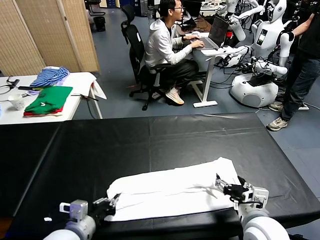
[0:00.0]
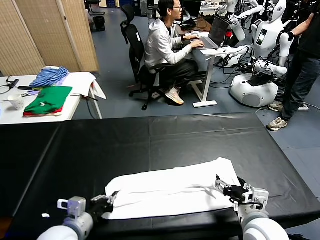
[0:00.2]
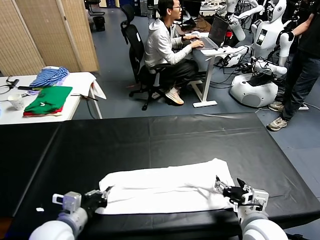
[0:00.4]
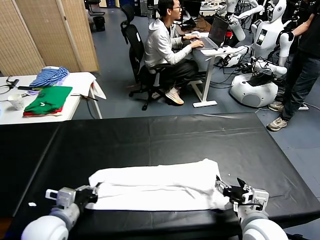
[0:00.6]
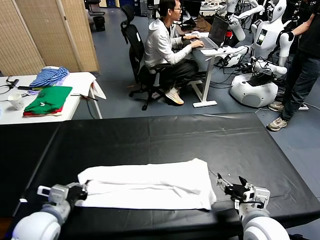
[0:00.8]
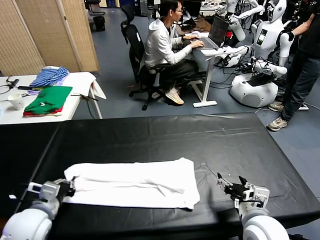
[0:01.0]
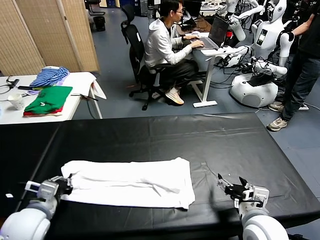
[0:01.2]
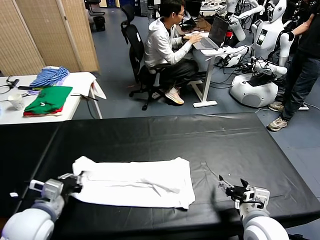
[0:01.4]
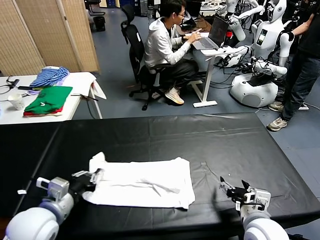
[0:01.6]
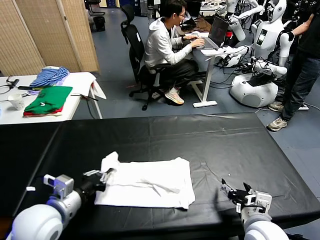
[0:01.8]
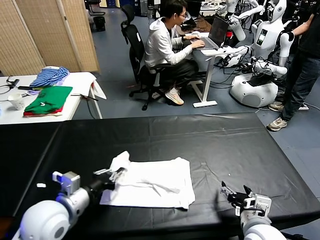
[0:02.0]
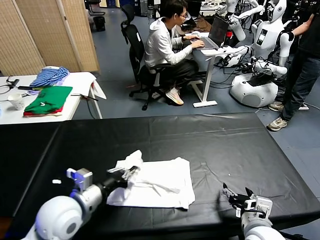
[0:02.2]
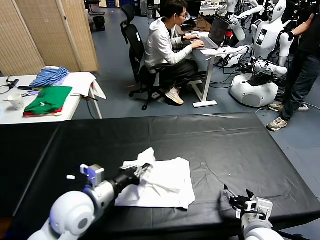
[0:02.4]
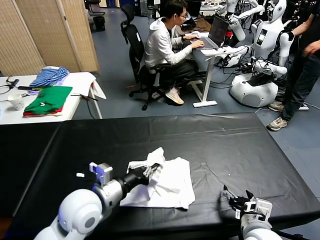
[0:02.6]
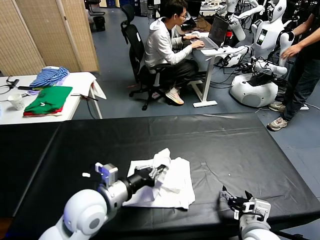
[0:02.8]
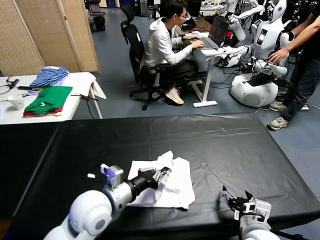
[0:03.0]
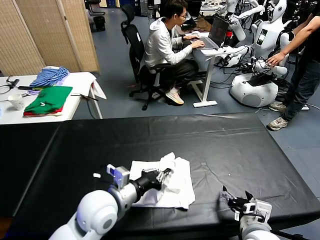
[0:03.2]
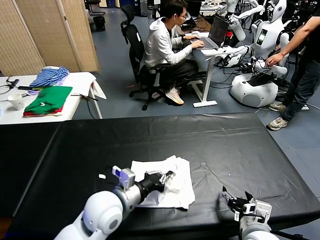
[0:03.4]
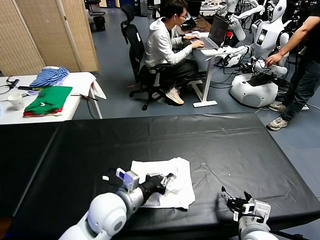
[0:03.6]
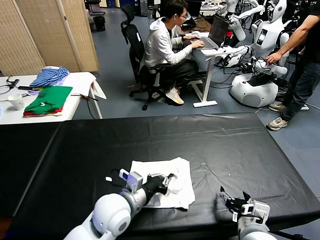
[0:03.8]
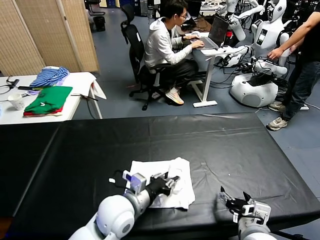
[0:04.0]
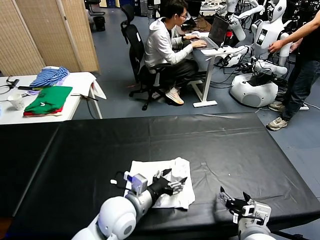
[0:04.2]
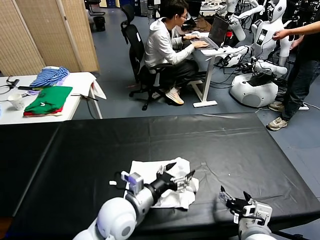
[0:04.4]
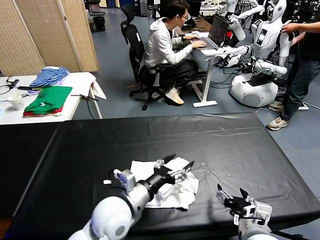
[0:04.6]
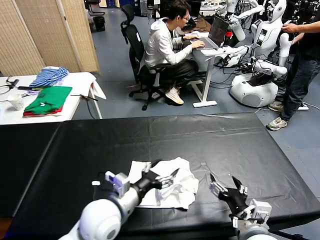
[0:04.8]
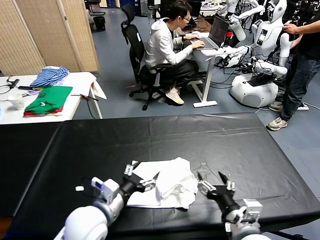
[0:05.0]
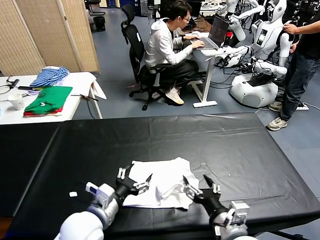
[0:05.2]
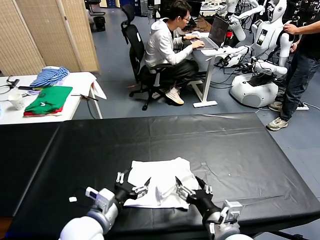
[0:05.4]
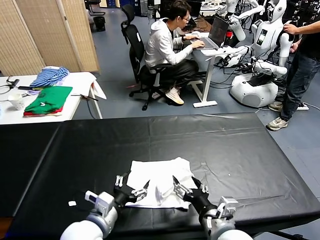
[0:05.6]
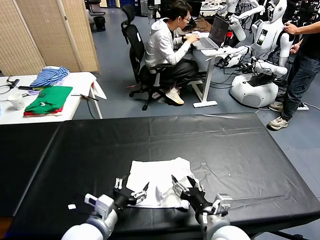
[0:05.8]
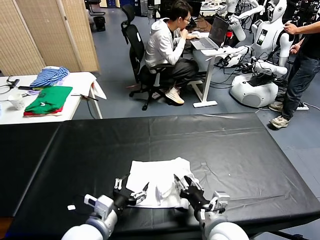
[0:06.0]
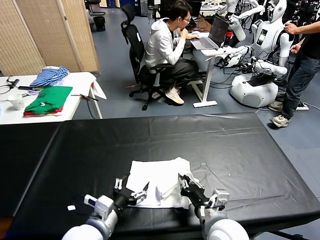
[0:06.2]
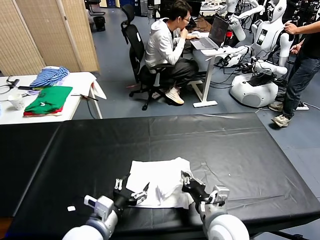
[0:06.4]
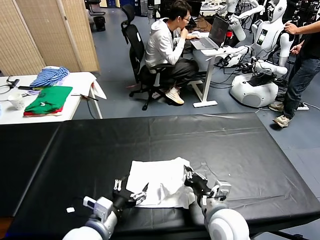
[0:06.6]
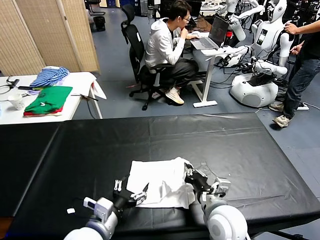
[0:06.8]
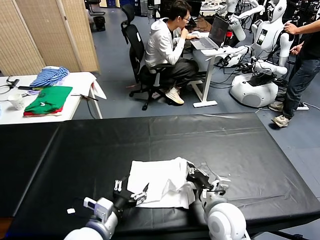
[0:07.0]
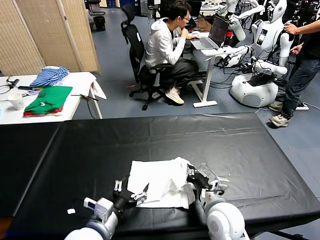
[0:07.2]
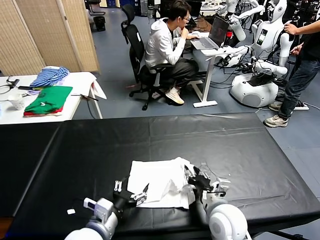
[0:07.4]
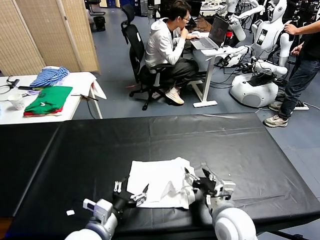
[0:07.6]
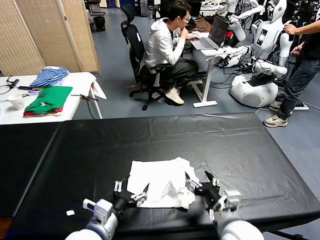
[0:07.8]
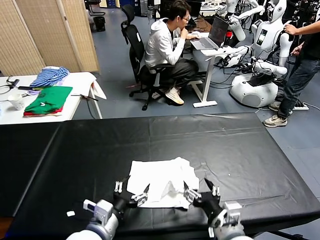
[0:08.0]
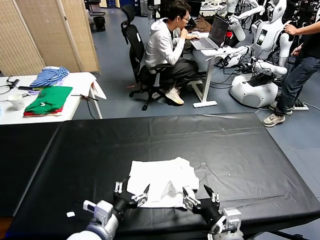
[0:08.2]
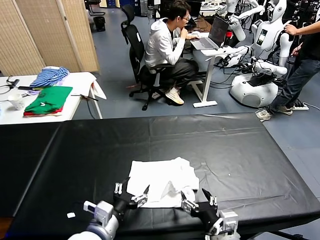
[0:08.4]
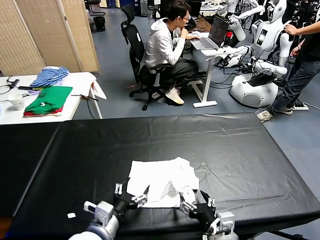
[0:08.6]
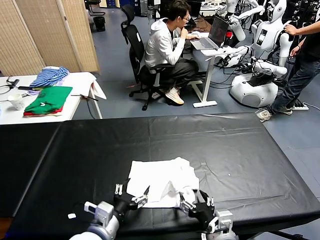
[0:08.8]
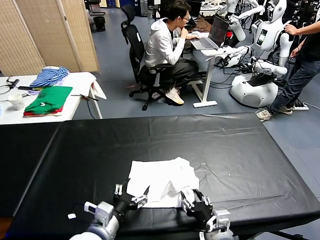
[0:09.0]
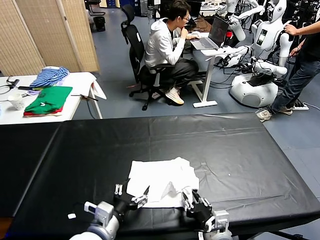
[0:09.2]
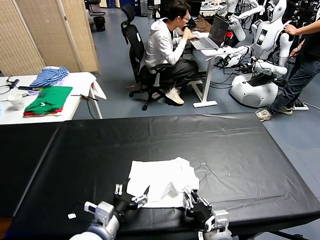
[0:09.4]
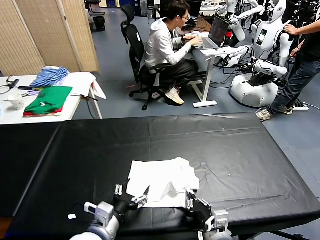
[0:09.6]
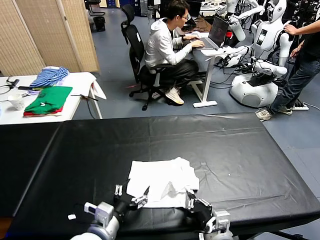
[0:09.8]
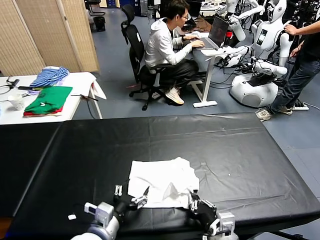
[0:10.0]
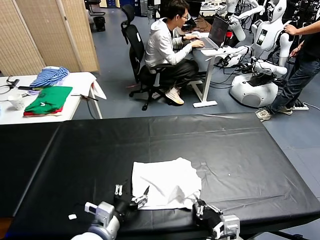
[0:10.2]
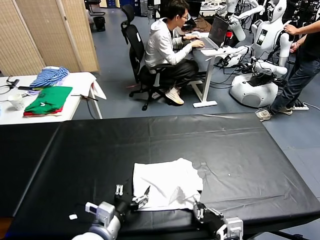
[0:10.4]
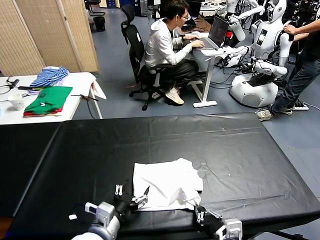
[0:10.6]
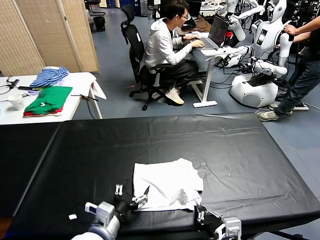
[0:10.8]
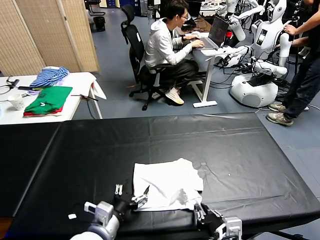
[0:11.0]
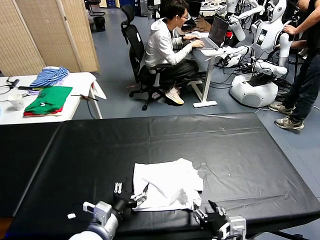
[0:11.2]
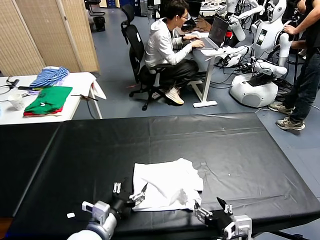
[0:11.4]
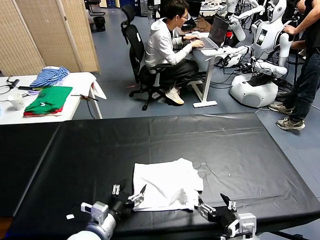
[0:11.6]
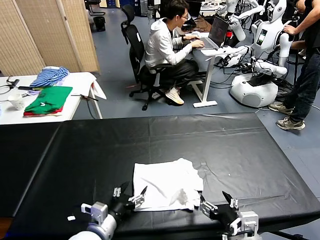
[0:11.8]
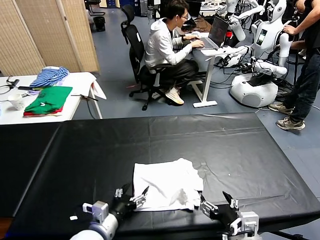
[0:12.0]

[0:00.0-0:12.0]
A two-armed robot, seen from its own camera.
Task of the whole recording: fold and organize the clothes.
Step, 0:00.0 to 0:04.0: use the left gripper to drag the left edge of the fabric to the left and folds it over the right edge.
0:00.0 to 0:01.6: The left gripper heads upward, covering roughly 5 cm, and moves some 10 cm to the left and comes back.
0:01.6 to 0:03.0: The left gripper shifts some 10 cm to the right.
0:03.0 to 0:04.4: The left gripper opens up.
0:04.4 to 0:06.0: The left gripper goes some 10 cm to the left and backward. Meanwhile the right gripper is displaced to the left by roughly 5 cm, and closes.
0:06.0 to 0:07.6: The right gripper opens.
0:07.6 to 0:09.0: The right gripper shifts by some 5 cm, and closes.
0:09.0 to 0:10.4: The right gripper shifts by about 5 cm, and closes.
0:10.4 to 0:12.0: The right gripper opens up, while the left gripper ends up approximately 5 cm from where it was.

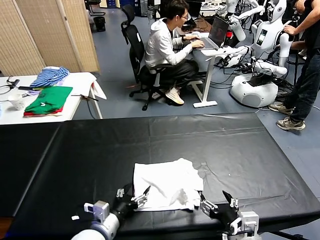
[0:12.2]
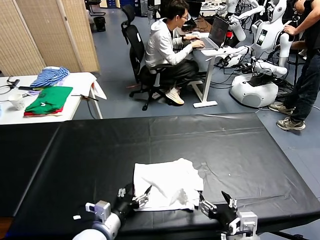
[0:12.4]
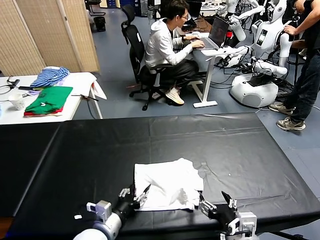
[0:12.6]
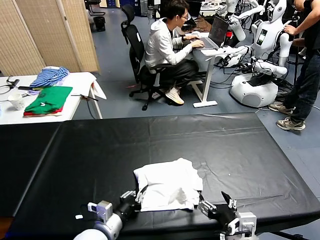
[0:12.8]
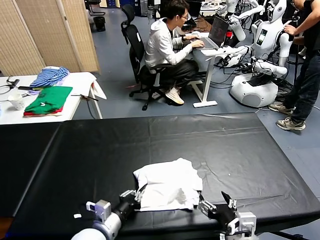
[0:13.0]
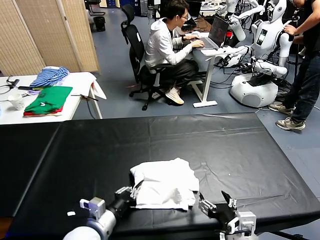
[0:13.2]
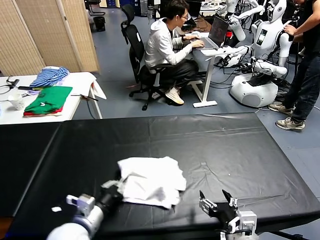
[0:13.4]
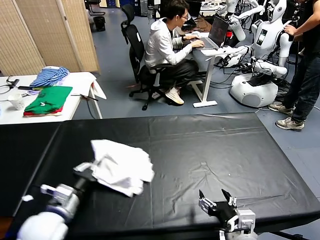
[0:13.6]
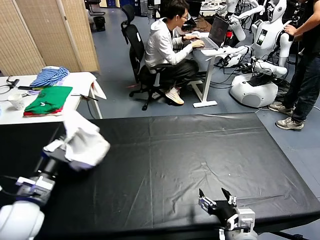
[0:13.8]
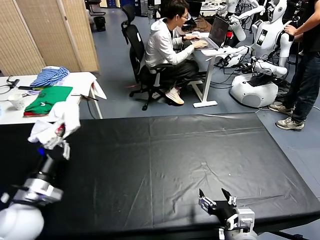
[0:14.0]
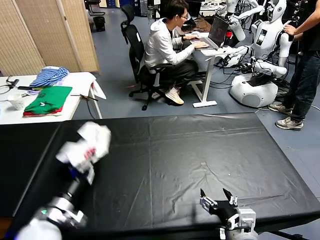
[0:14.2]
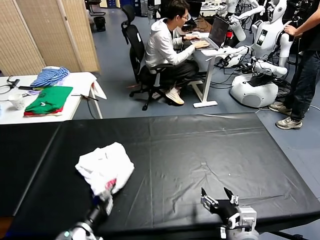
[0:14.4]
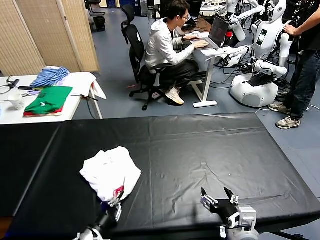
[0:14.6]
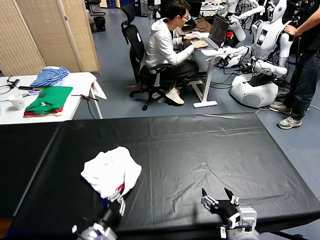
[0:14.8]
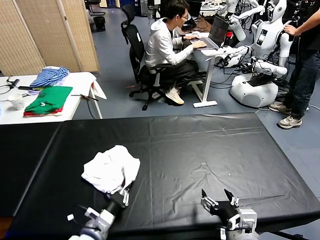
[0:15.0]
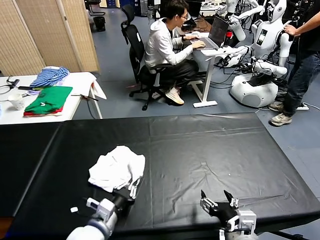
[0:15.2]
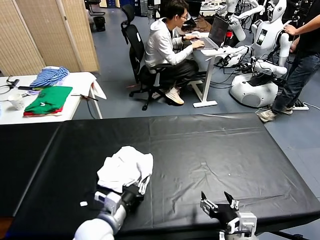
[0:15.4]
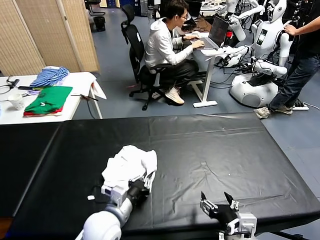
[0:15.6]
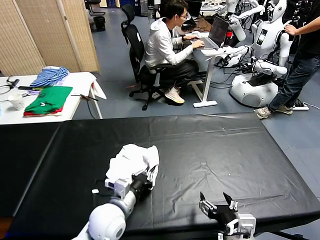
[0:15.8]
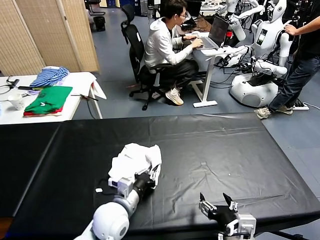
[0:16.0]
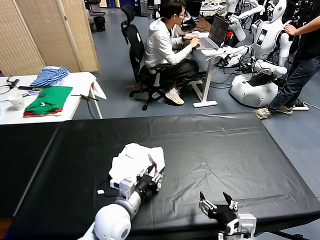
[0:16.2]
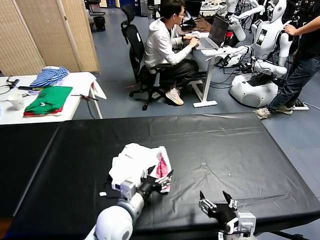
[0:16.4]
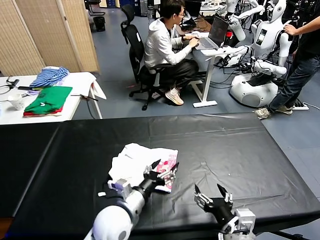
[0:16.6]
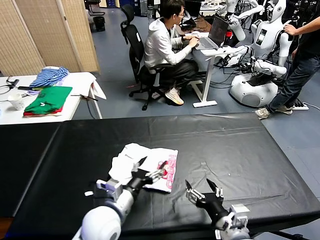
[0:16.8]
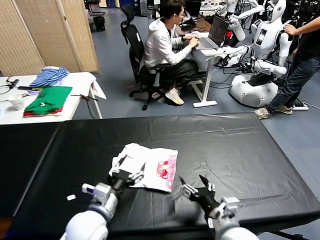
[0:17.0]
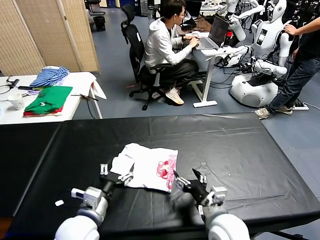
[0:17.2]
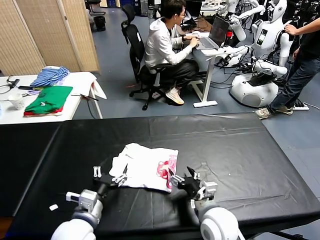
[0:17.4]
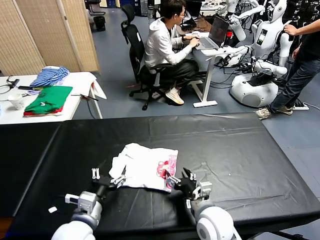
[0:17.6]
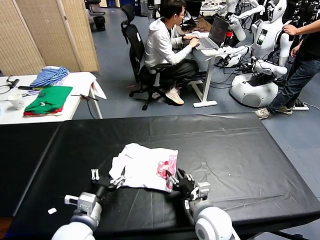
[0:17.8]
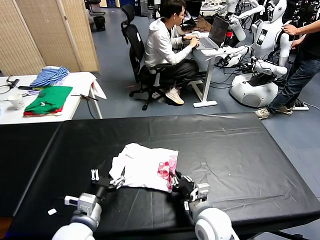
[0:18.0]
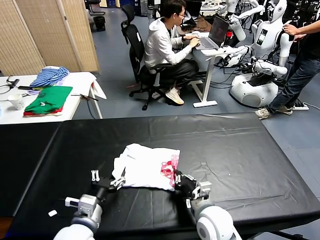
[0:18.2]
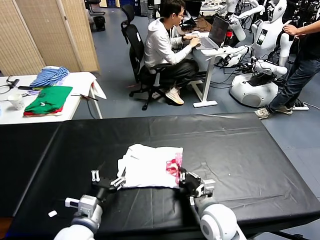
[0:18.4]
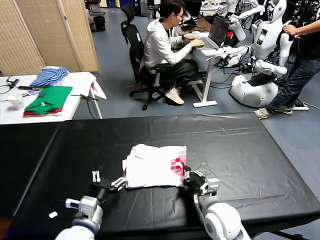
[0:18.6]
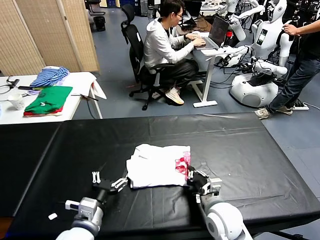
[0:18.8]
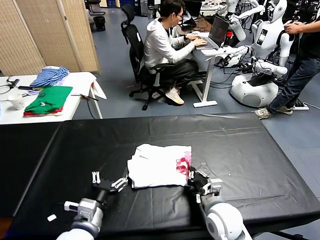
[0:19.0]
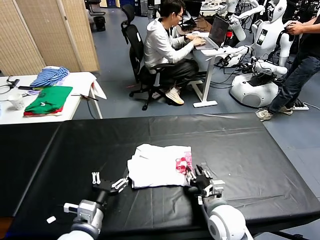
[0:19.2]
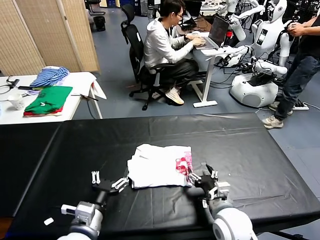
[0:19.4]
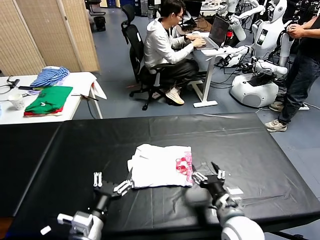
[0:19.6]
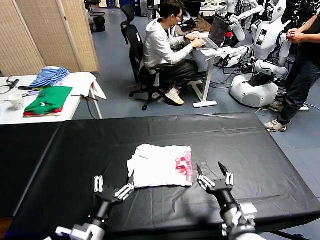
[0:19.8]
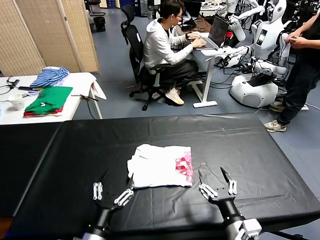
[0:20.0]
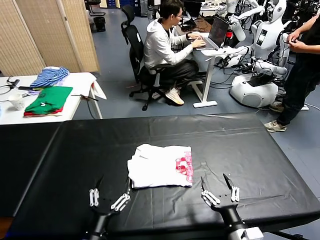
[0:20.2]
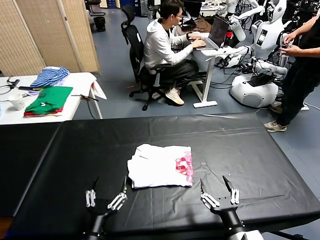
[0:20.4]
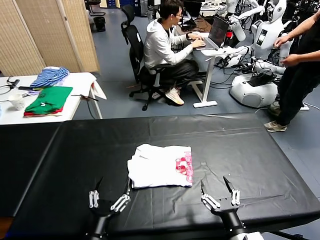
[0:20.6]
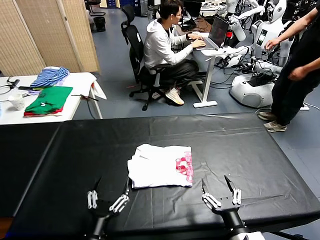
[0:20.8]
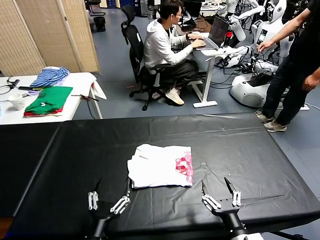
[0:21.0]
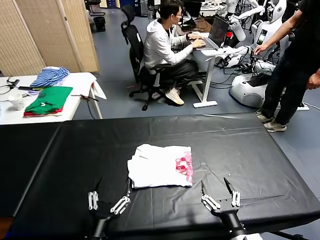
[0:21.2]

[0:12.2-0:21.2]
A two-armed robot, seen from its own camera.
Task of the whole recording: fold and organize the clothes.
Step, 0:12.2 to 0:16.4: Flip the folded clothes over with left gripper.
Step, 0:16.6 to 0:19.2: Drag the clothes to the center of the table.
0:12.2 to 0:13.8: The left gripper goes approximately 20 cm to the left and upward, and closes up.
0:13.8 to 0:15.2: The left gripper shifts about 20 cm to the right and downward.
0:15.2 to 0:16.6: The left gripper opens its fingers.
0:16.6 to 0:18.2: The left gripper goes approximately 5 cm to the left; the right gripper travels forward and downward by approximately 15 cm, and closes.
0:18.2 to 0:19.8: The left gripper shifts roughly 5 cm backward; the right gripper goes about 15 cm backward and to the right, and opens.
0:19.8 to 0:21.2: The grippers stay close to where they were, moving slightly.
